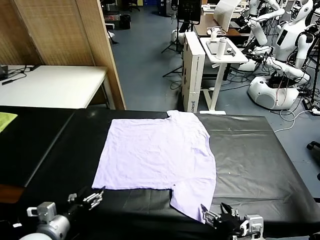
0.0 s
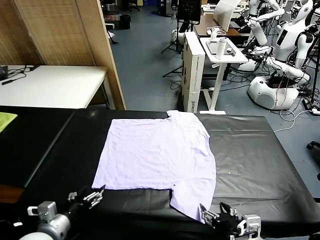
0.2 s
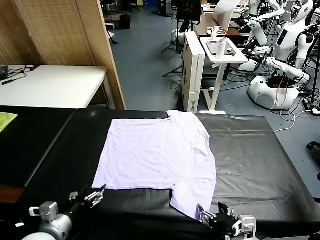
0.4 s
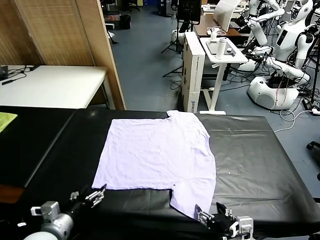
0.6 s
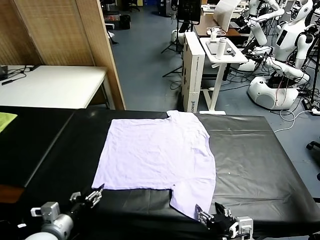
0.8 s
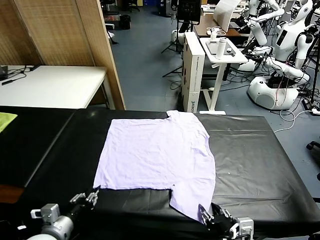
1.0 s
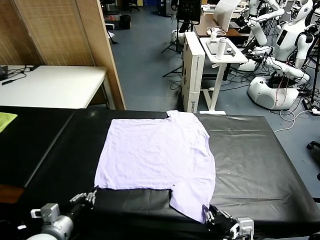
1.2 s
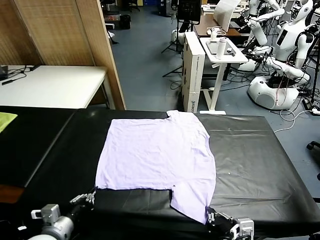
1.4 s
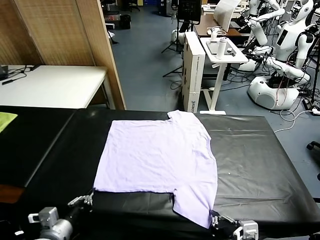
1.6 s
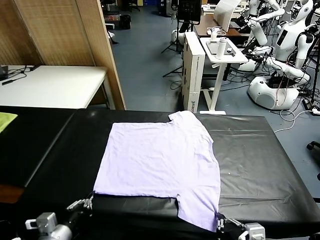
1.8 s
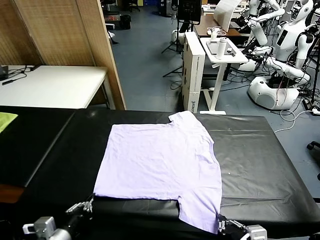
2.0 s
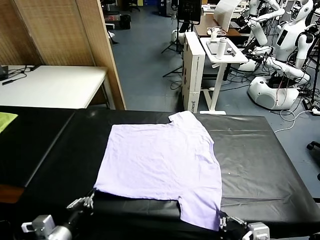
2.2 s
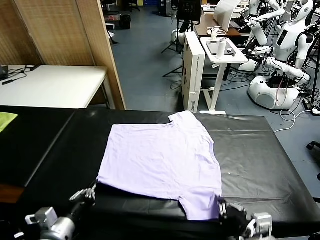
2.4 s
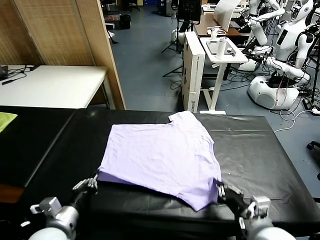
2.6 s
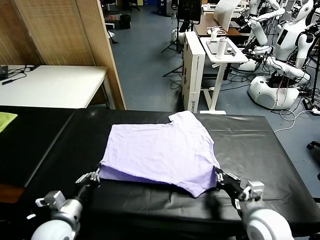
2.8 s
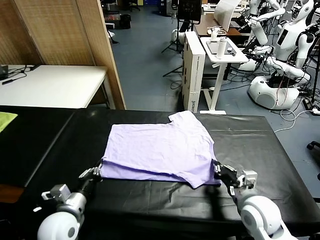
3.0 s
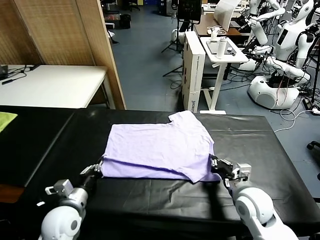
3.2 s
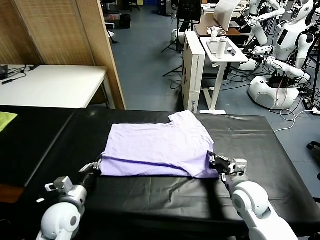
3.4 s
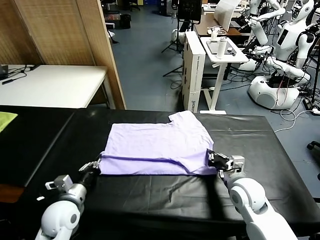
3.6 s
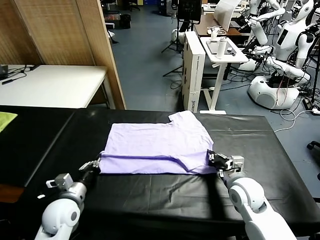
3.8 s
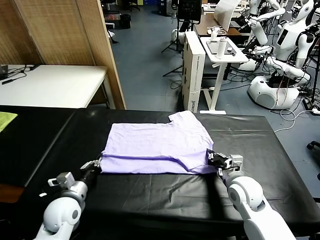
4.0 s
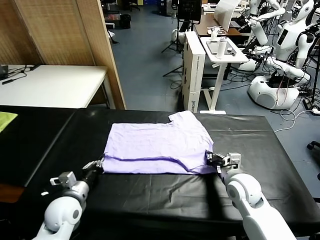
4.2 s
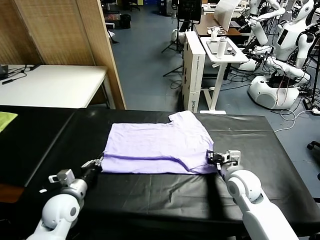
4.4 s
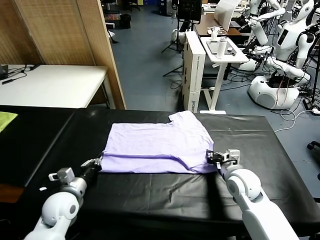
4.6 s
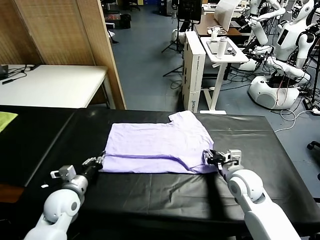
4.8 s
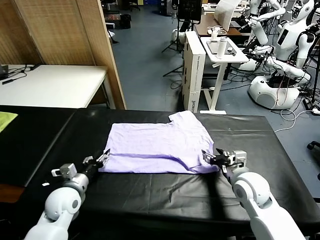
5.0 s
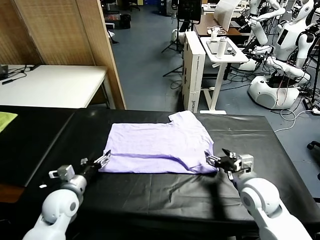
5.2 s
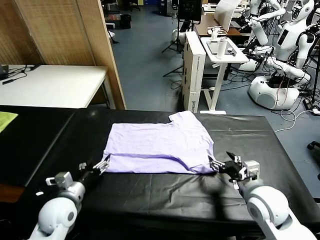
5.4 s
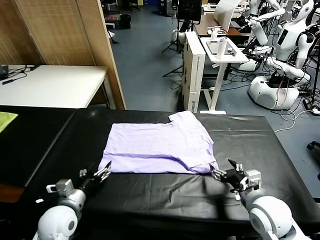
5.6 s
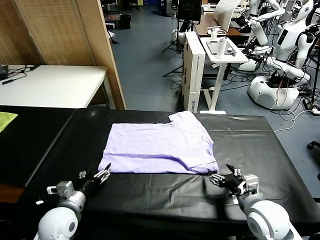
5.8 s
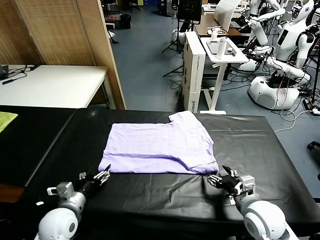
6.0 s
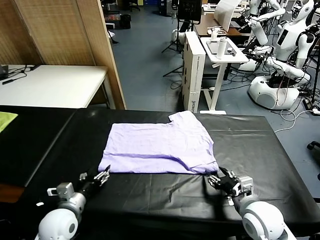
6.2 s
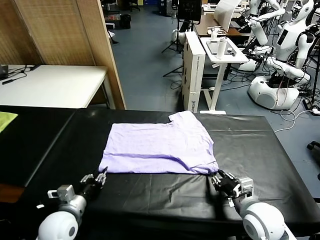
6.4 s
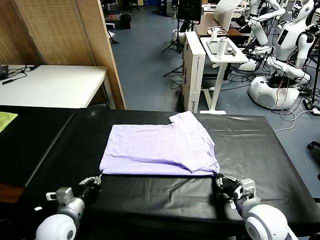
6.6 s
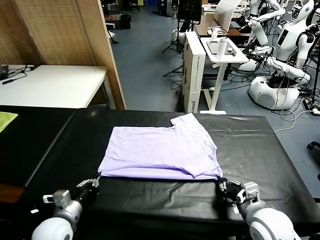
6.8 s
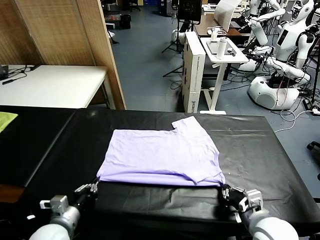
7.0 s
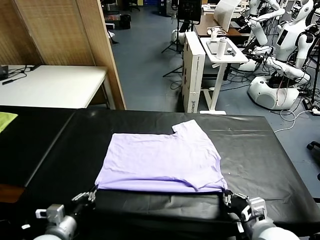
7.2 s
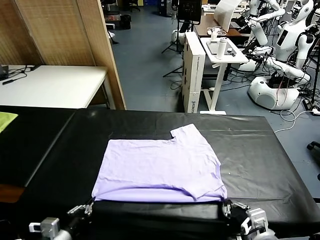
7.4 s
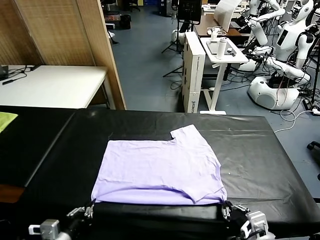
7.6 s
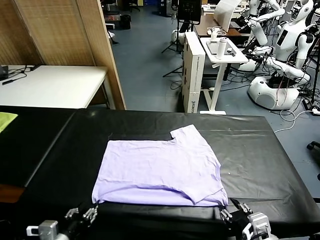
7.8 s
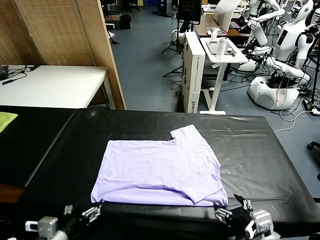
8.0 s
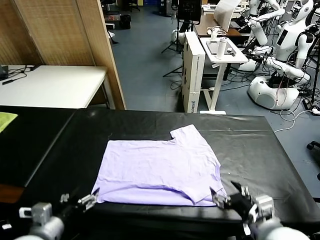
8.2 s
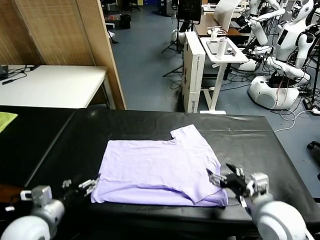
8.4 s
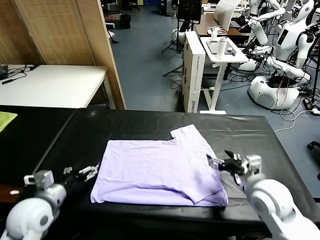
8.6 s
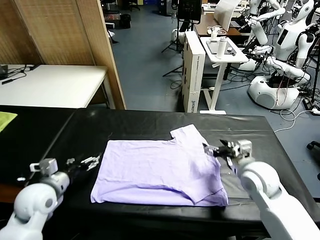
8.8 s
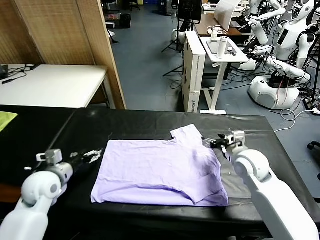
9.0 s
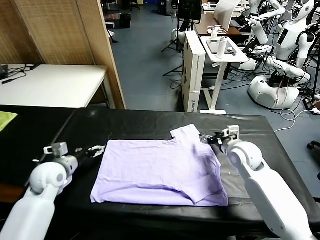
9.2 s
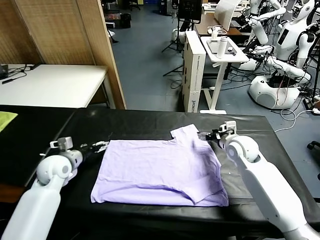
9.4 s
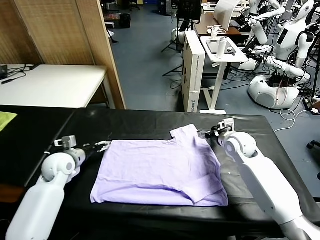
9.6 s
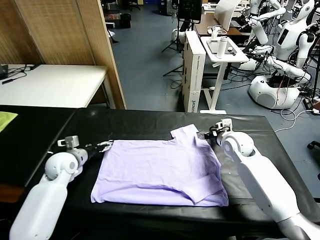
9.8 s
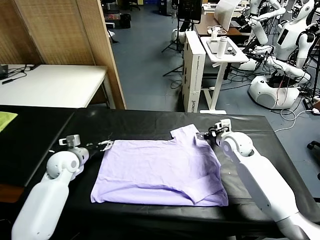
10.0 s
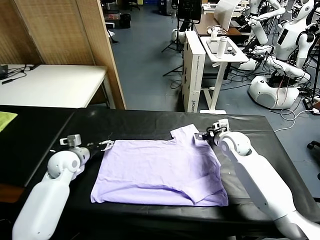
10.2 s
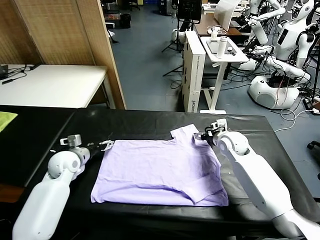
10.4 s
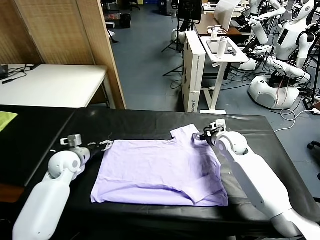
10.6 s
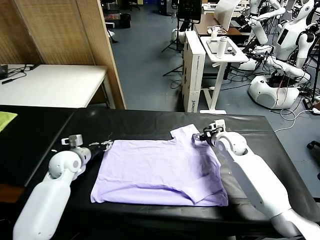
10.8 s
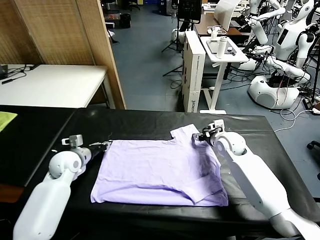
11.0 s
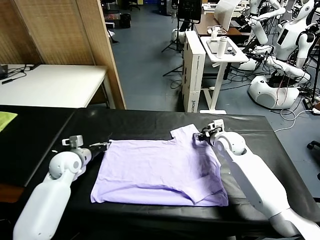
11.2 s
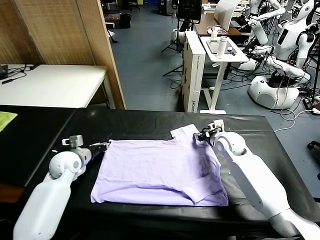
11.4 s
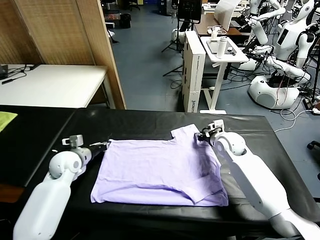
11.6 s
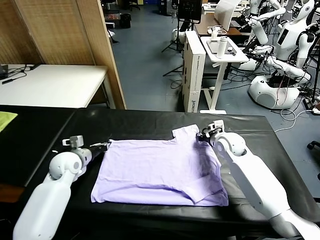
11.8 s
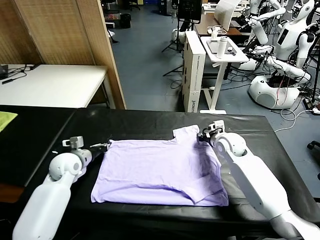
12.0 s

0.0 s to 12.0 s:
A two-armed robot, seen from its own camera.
Task of the whole recording: fold and organize the clothes.
Step, 0.0 to 1.4 s: use both grippers simultaneously to clamp the lower edge of the clothing fabric.
Step, 1.6 to 5.0 s: use both grippers to drag the lower edge of the fabric forward and fold it over the upper edge.
Step, 5.2 to 7.8 s: Drag the clothes downward with both gripper.
Step, 8.0 to 12.0 s: use both grippers simultaneously to clamp the upper edge of the clothing fabric.
1.6 to 3.0 s: The left gripper heads forward, covering approximately 10 cm, while the right gripper shifts some 20 cm forward.
3.0 to 4.4 s: The left gripper goes about 5 cm forward.
4.4 to 6.0 s: The right gripper is displaced backward by roughly 10 cm, and opens, then closes once more; the left gripper opens up.
6.0 to 7.6 s: The left gripper moves backward, approximately 10 cm, and closes up. Meanwhile the right gripper shifts roughly 15 cm backward and upward.
7.6 to 9.0 s: The two grippers go roughly 30 cm forward. The left gripper opens up; the right gripper opens.
9.0 to 10.4 s: The left gripper travels forward by roughly 5 cm.
10.4 to 12.0 s: The left gripper closes up. Meanwhile the right gripper closes.

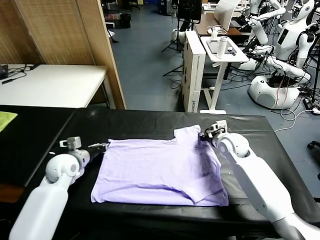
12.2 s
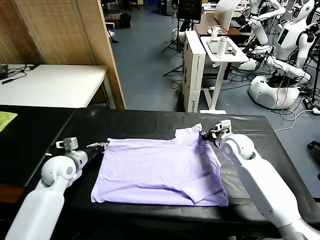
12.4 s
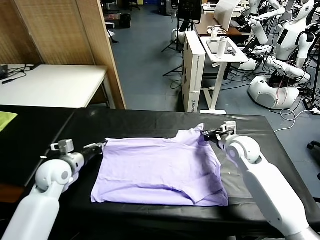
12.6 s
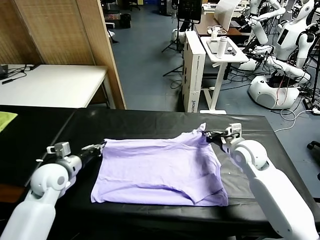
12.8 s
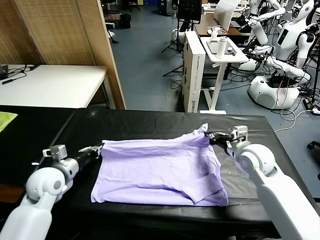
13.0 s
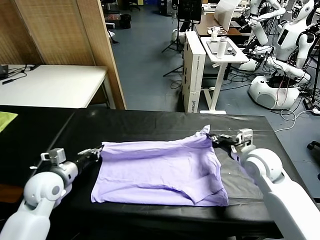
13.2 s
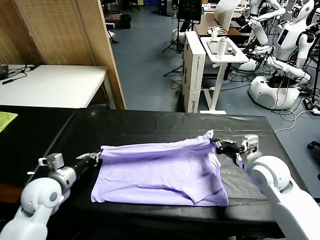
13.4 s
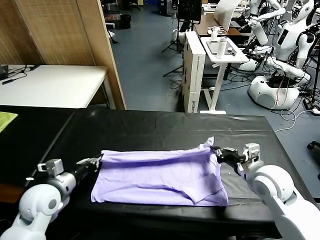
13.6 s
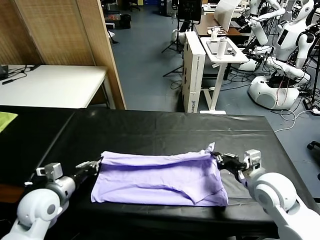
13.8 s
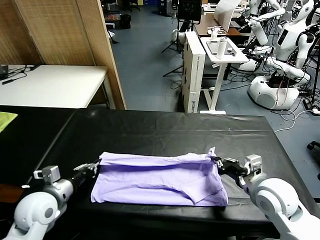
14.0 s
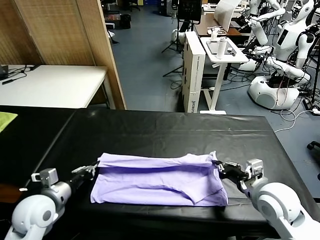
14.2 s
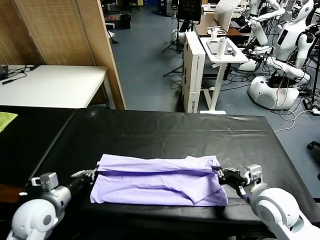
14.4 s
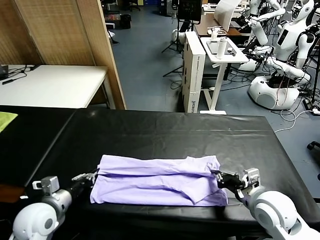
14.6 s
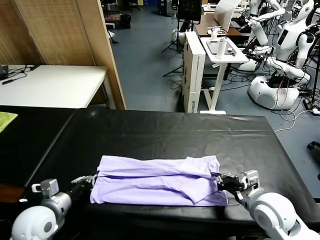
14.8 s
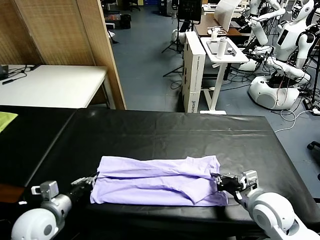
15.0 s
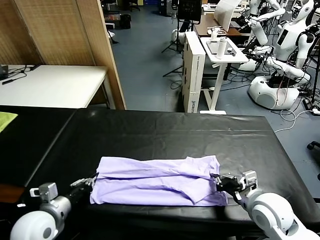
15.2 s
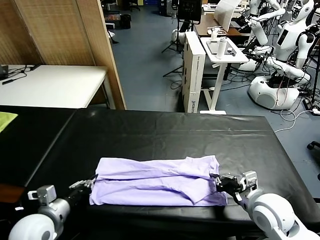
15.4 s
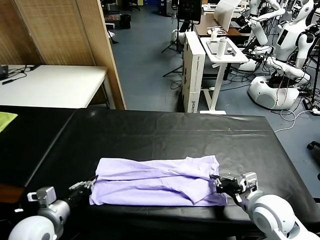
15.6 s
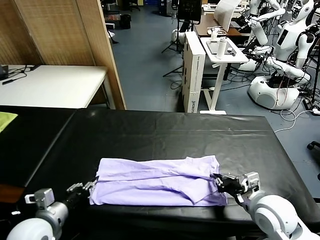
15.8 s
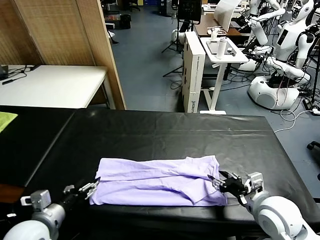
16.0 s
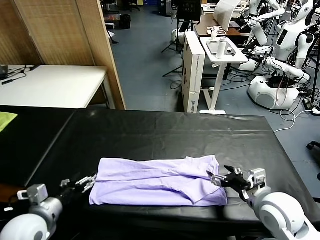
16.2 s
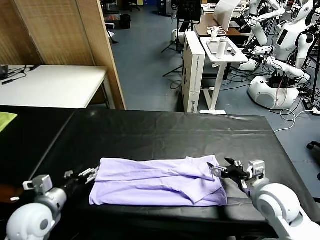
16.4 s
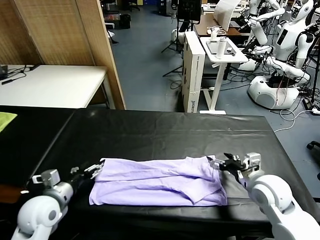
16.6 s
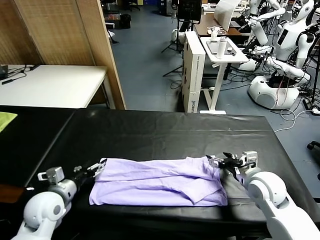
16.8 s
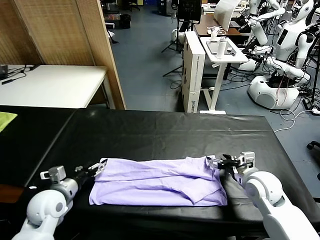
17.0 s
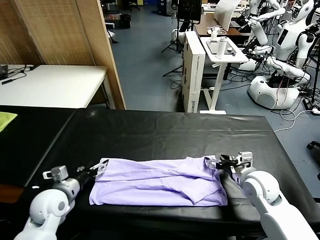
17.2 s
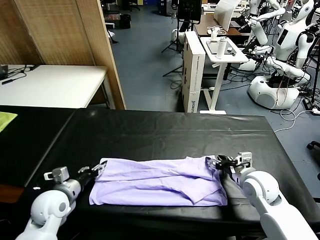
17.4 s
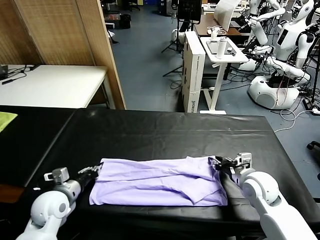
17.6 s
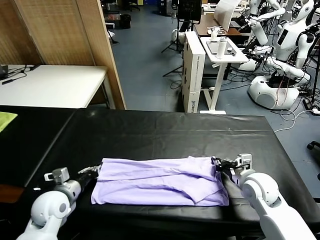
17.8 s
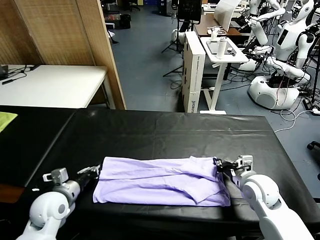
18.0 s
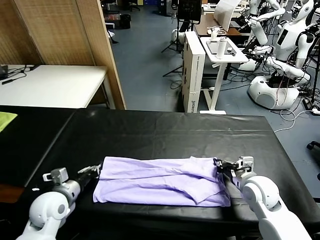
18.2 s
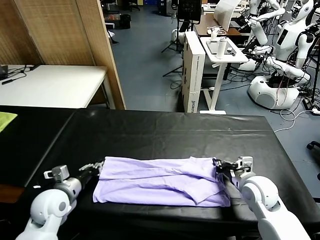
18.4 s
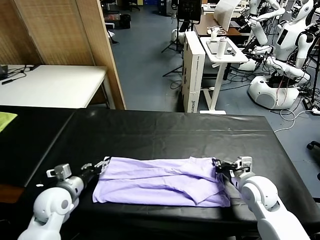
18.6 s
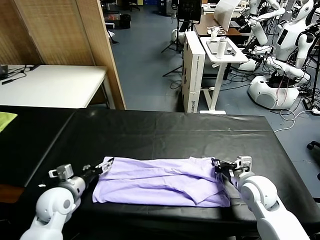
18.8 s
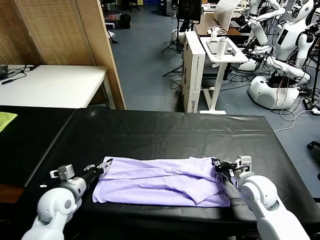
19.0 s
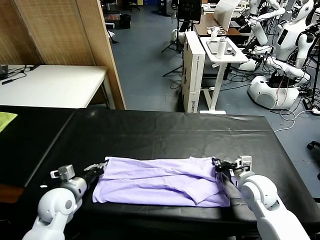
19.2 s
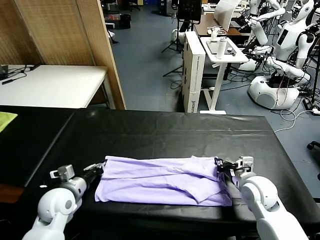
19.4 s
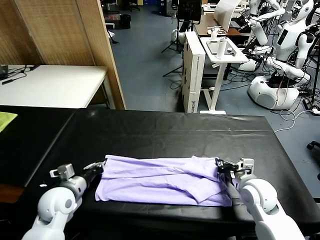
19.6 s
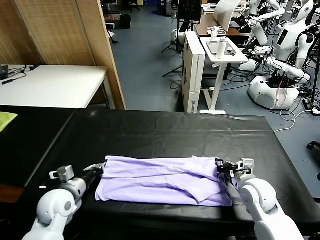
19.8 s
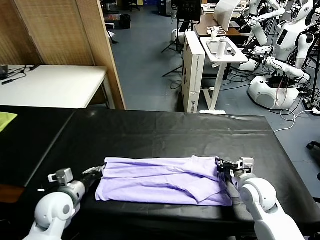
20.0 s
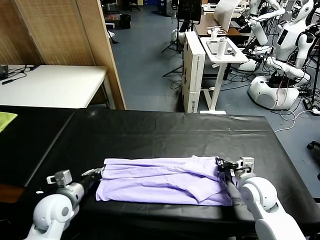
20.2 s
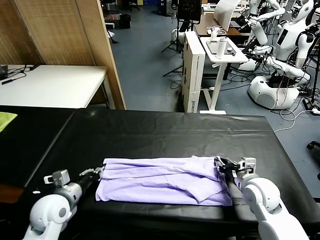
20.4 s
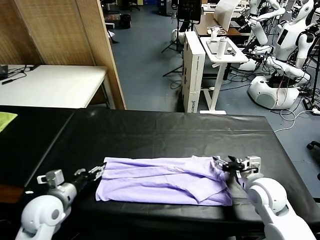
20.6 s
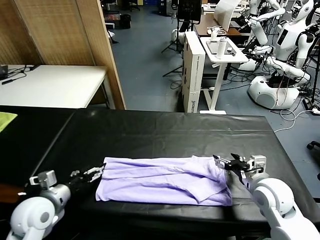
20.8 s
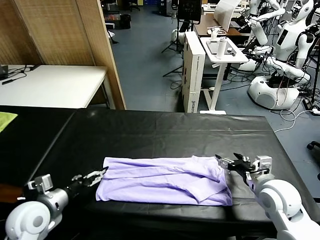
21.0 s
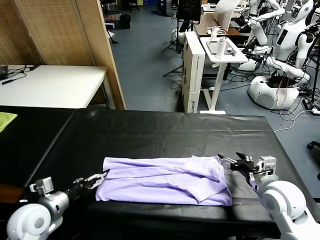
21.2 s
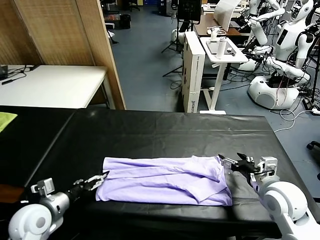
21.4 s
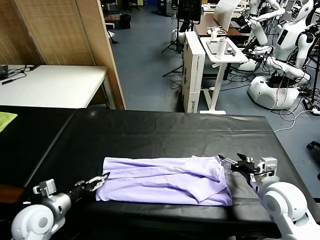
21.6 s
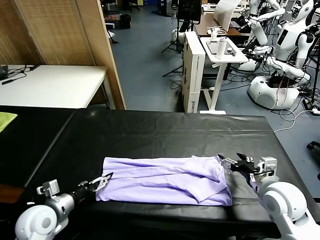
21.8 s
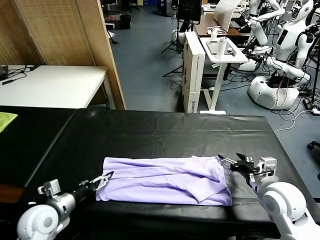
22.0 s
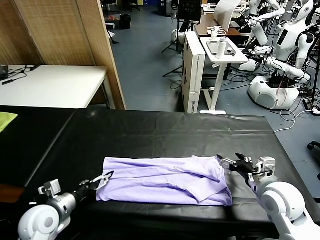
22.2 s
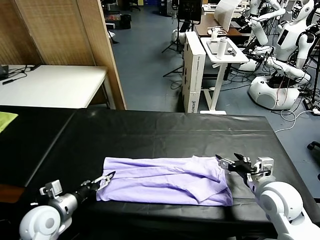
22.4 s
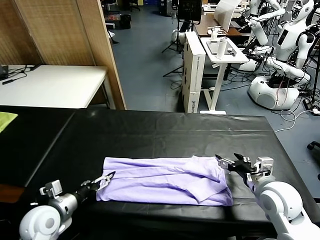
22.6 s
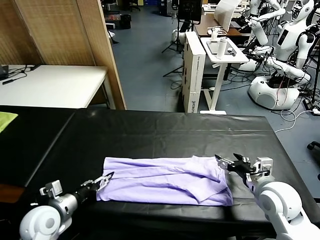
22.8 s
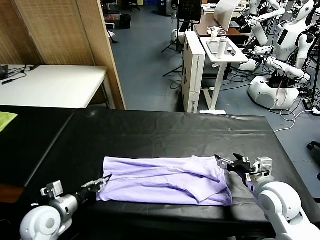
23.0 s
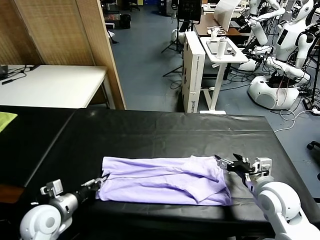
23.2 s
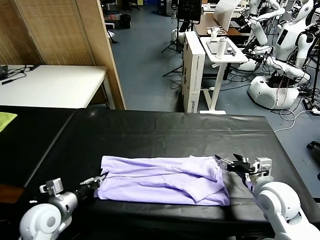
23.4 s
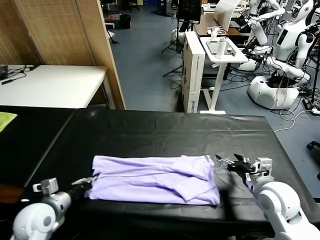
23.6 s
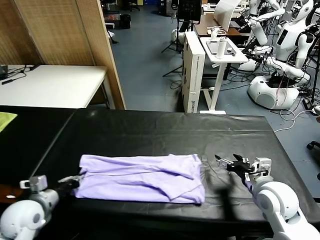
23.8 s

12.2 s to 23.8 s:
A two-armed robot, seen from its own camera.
Task of the whole recording: fold and organize the clothes.
Step, 12.2 to 16.0 s: use both grippers to drag the upper edge of the fabric backward and fold it over the lower edge.
Step, 16.2 to 23.4 s: use the left gripper to clamp the left edge of the fabric.
12.2 to 13.6 s: Both grippers travel together backward, about 15 cm.
13.6 to 15.0 s: The left gripper travels backward by about 5 cm.
15.0 to 16.6 s: Both grippers move forward, about 5 cm. The left gripper opens. The right gripper opens up.
16.6 to 18.0 s: The left gripper closes. Meanwhile the right gripper closes.
18.0 to 19.4 s: The left gripper opens, then closes once more.
19.4 to 21.0 s: The right gripper heads upward, covering some 5 cm, and opens; the left gripper is displaced backward by about 5 cm, and opens its fingers.
21.0 to 22.4 s: The grippers make only small movements.
22.4 to 23.8 s: The left gripper is displaced to the left by some 5 cm, and closes its fingers.
